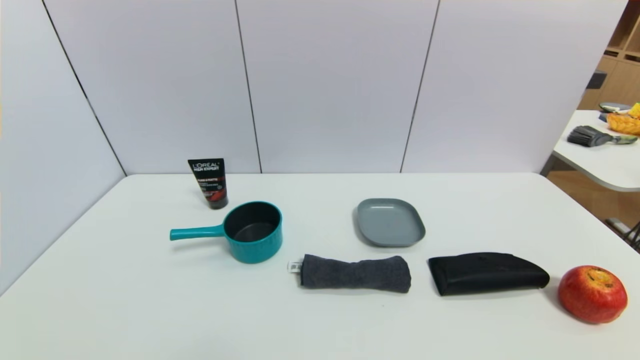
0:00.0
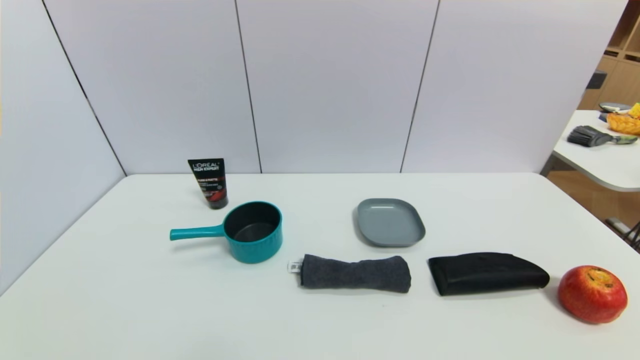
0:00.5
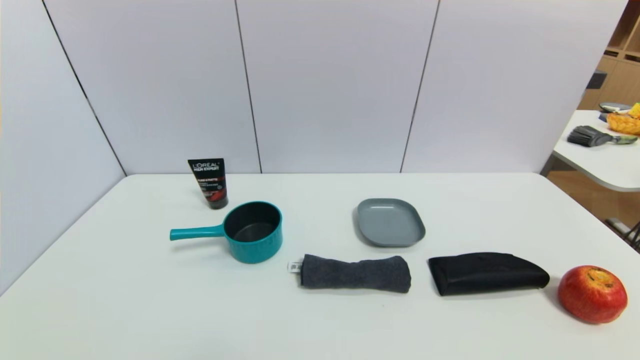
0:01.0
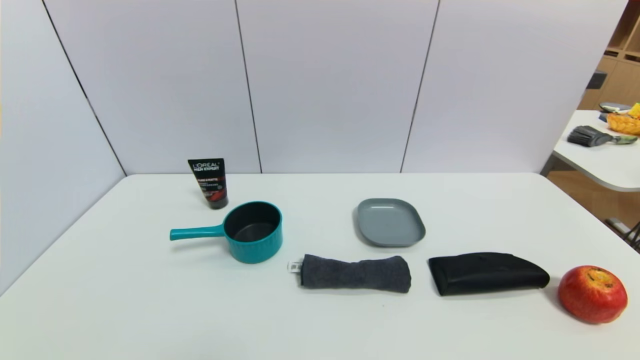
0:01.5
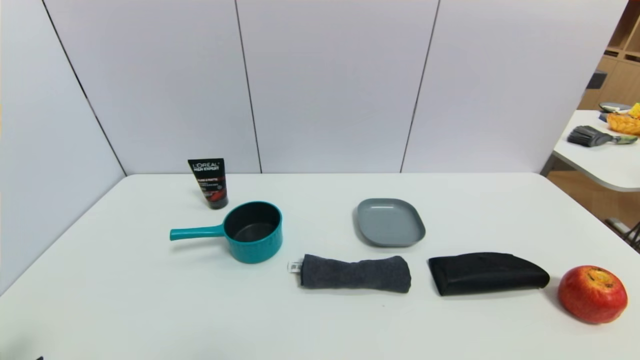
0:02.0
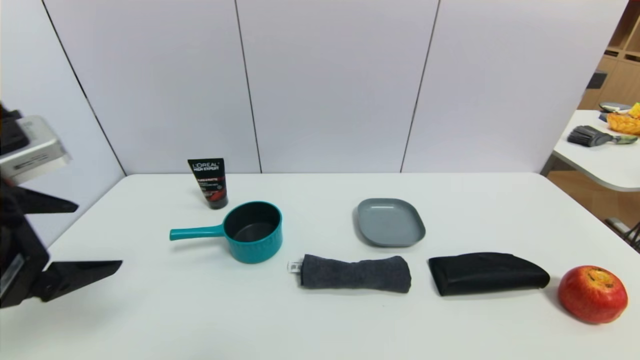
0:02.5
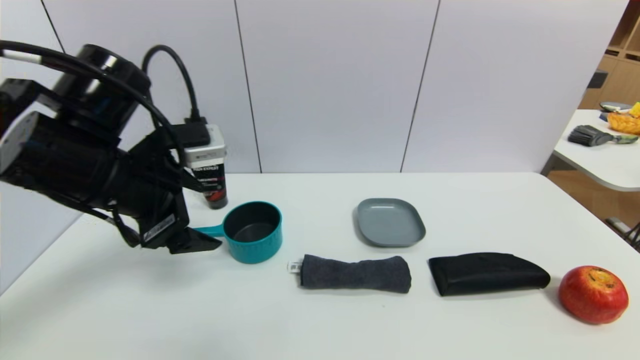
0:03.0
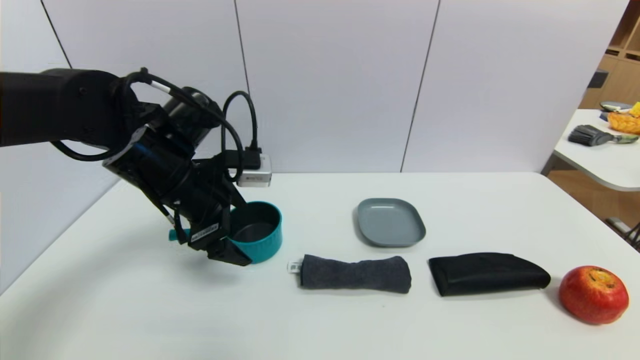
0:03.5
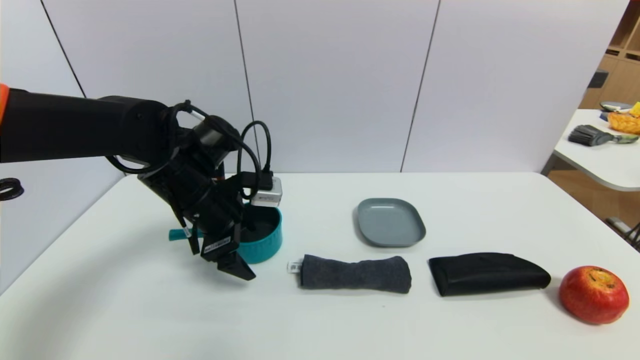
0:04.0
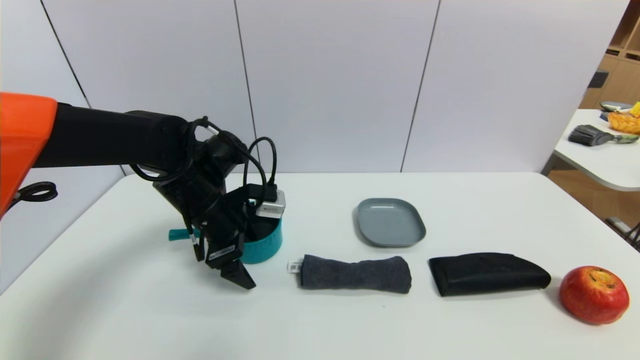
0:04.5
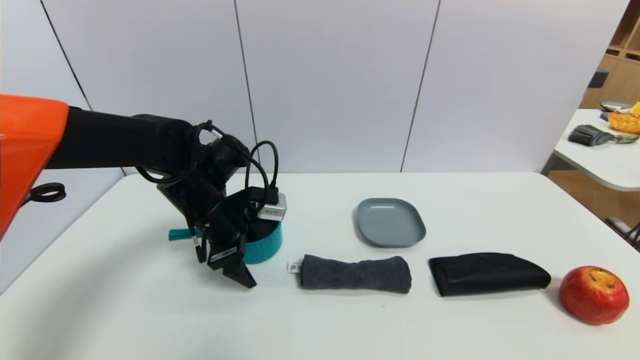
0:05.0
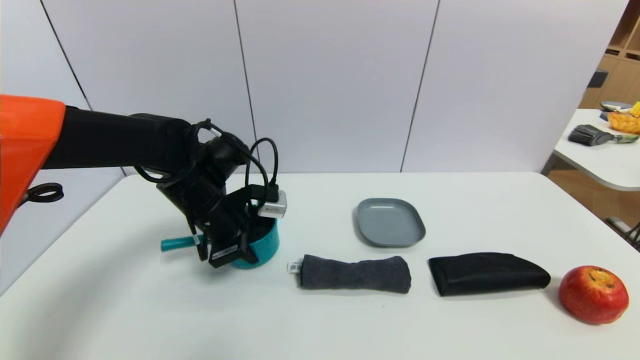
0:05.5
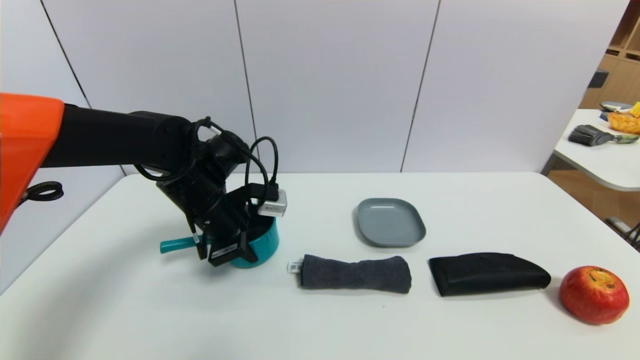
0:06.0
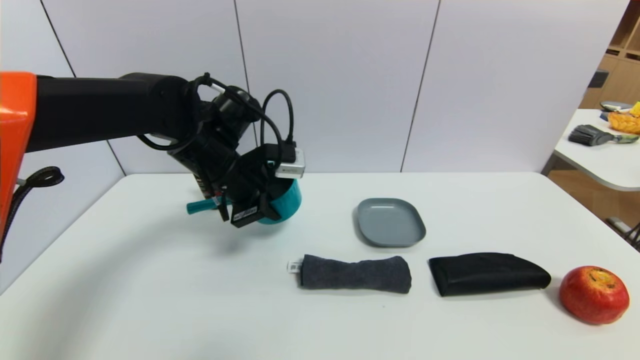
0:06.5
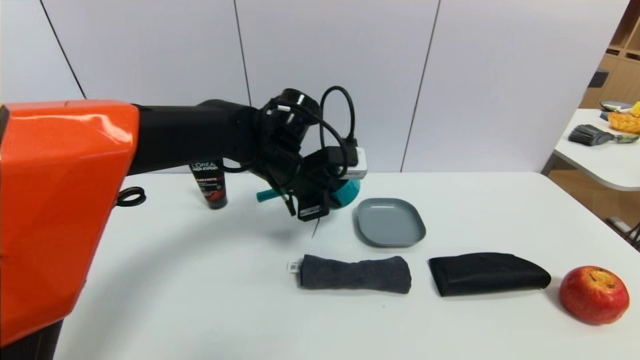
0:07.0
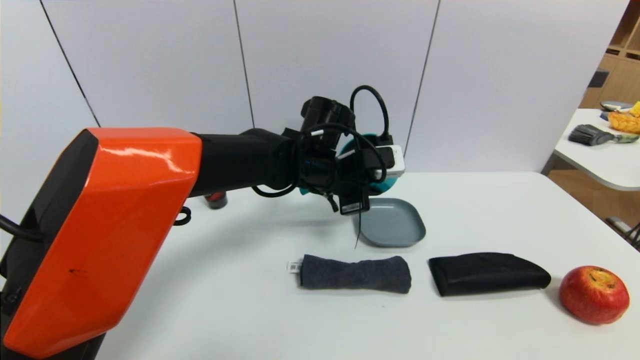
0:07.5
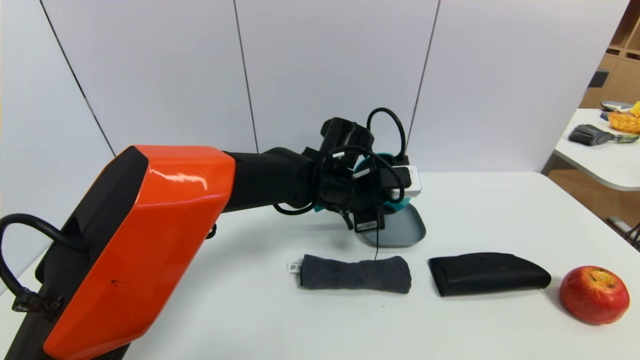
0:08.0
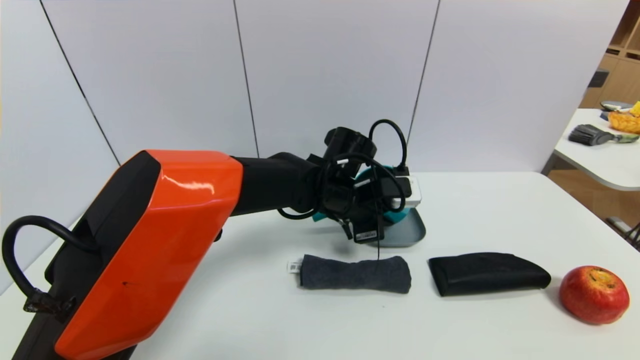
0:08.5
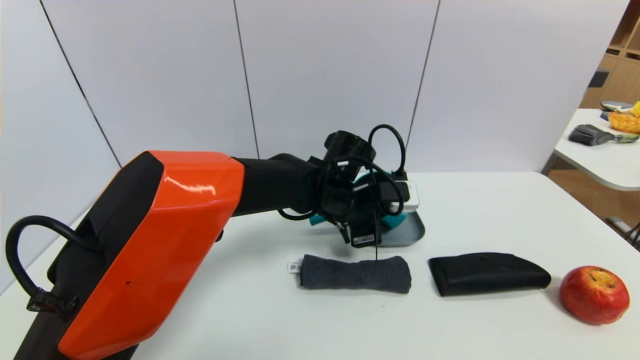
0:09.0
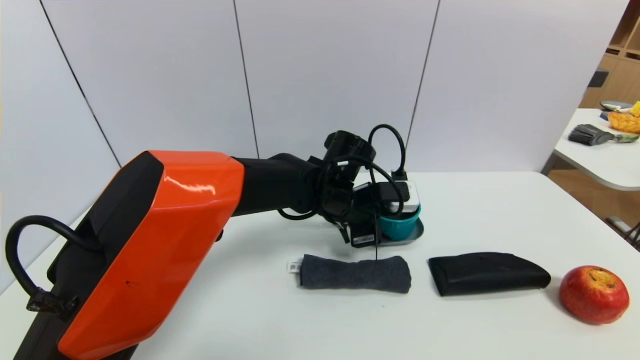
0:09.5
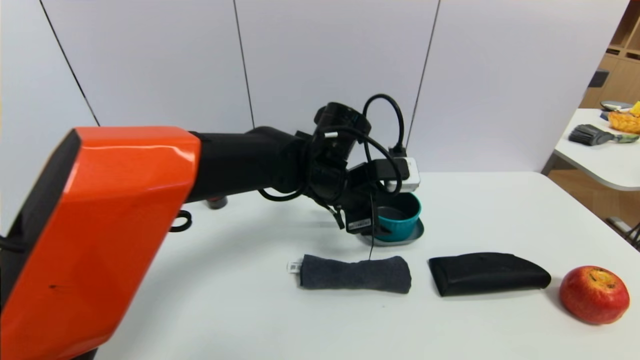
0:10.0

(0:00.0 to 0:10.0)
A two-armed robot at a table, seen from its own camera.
Task of the whole recording: use a gripper to pick the target object and place on the dish.
Step, 0:00.0 - 0:05.5: Grasp the blue pot with the left gripper.
0:02.0 - 0:04.0: The left gripper travels forward and to the right by some 35 cm.
0:04.0 - 0:06.0: The left gripper closes up.
0:06.0 - 0:08.0: The left gripper shifts approximately 20 cm to the right.
0:08.0 - 0:10.0: The left gripper ends up some 5 cm from where it was, and opens its fingers.

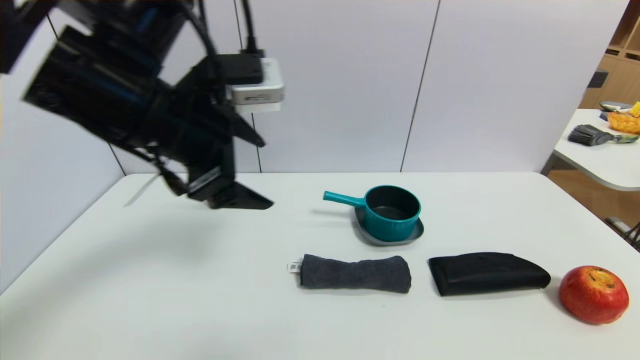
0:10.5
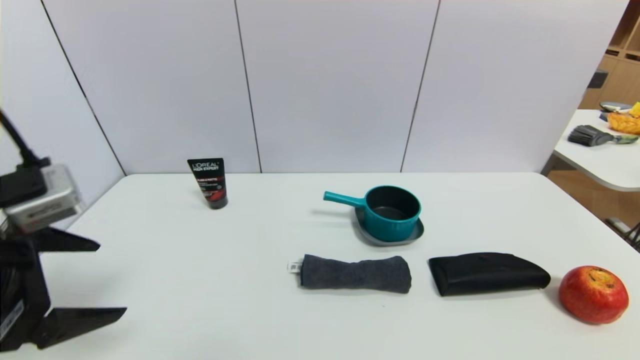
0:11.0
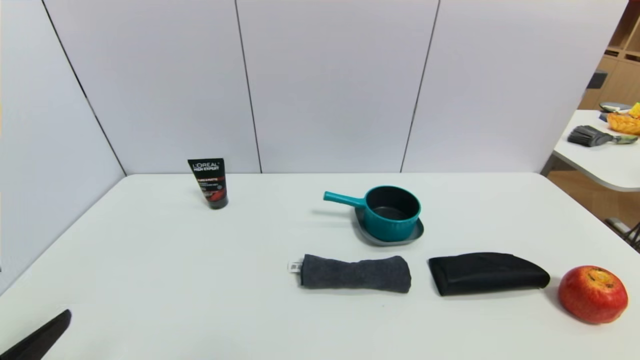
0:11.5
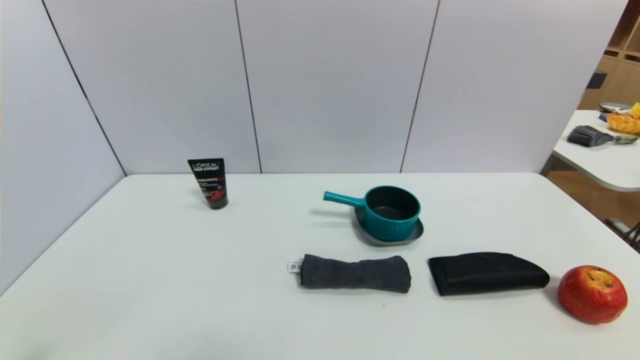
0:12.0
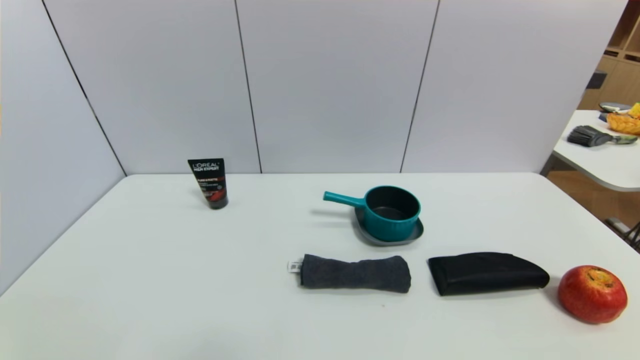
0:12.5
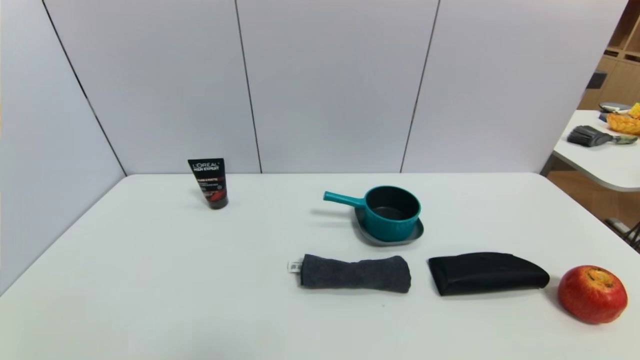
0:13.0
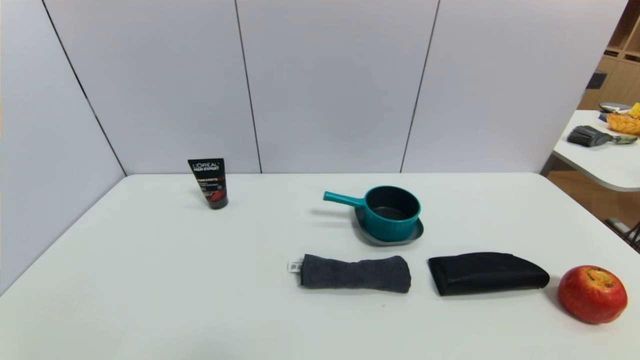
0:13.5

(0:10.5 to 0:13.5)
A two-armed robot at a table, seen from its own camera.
Task of the whole recording: use a gripper to pick the target object and place on the dish.
0:10.5 - 0:12.0: The left gripper goes about 35 cm backward, downward and to the left.
